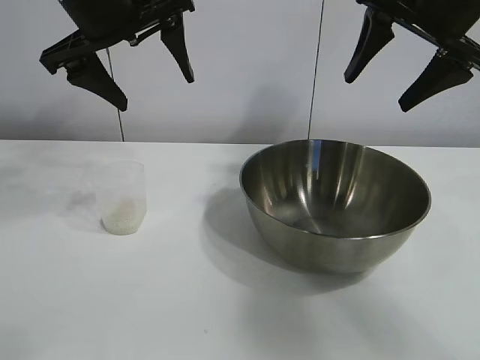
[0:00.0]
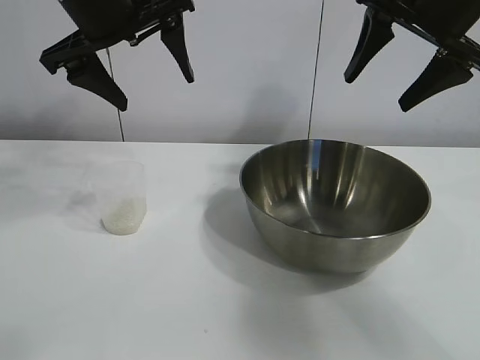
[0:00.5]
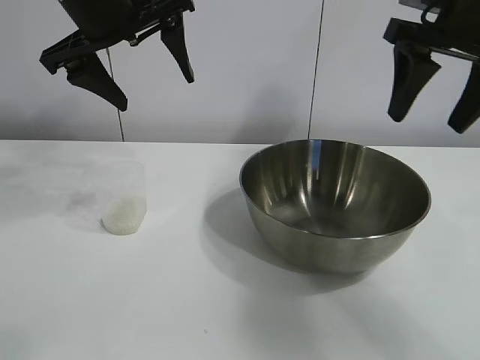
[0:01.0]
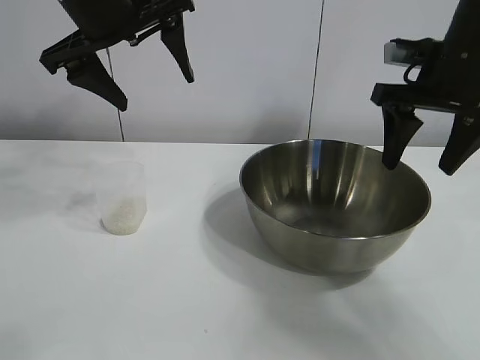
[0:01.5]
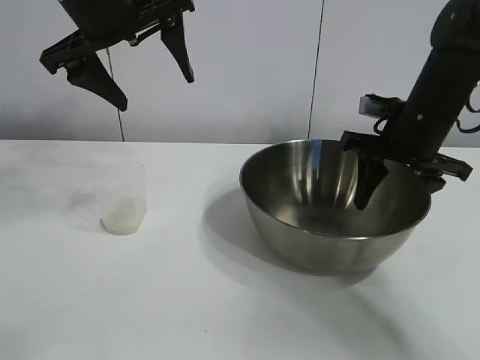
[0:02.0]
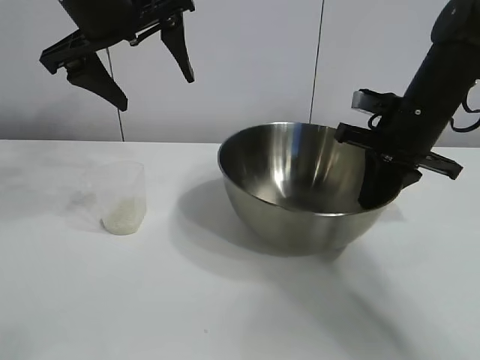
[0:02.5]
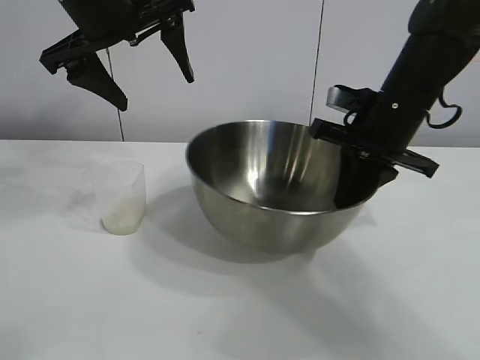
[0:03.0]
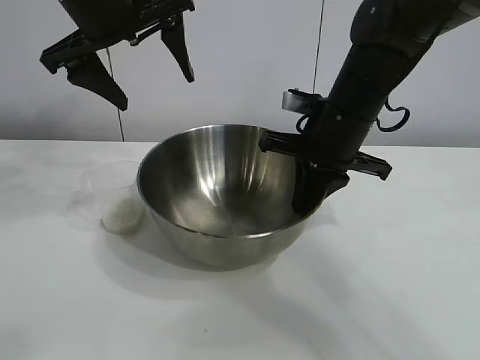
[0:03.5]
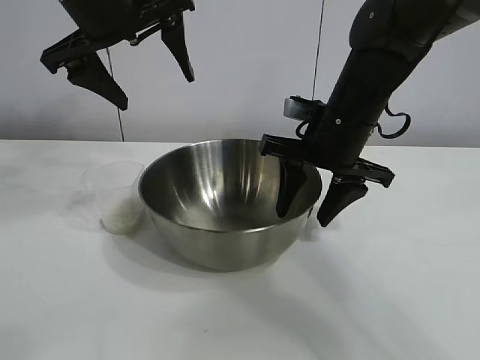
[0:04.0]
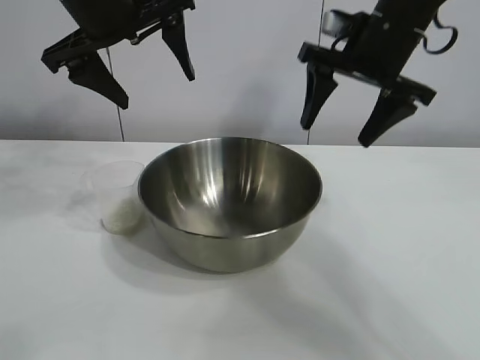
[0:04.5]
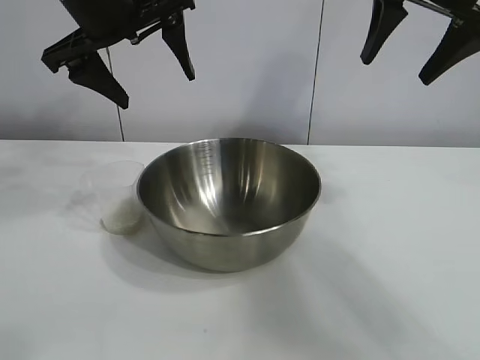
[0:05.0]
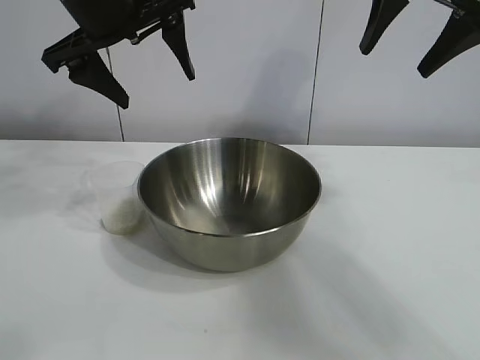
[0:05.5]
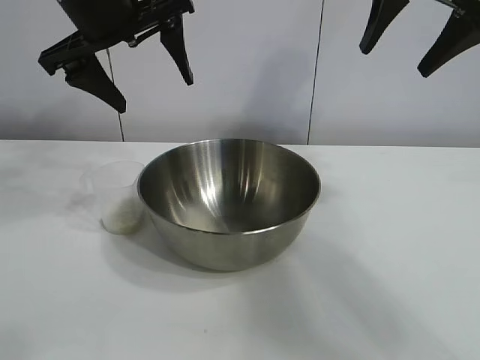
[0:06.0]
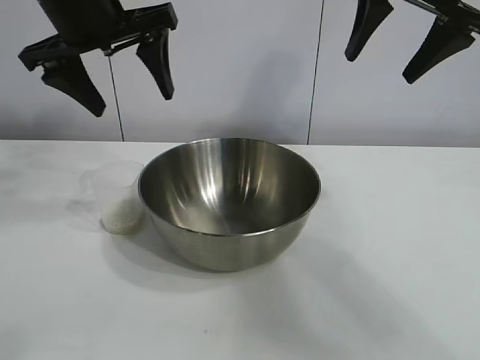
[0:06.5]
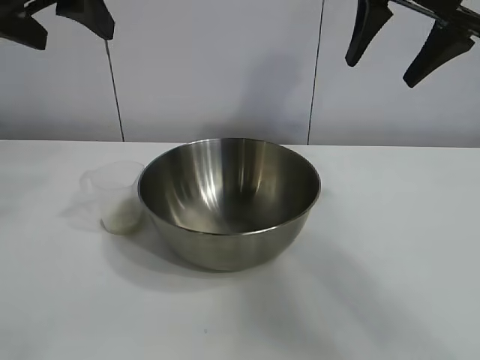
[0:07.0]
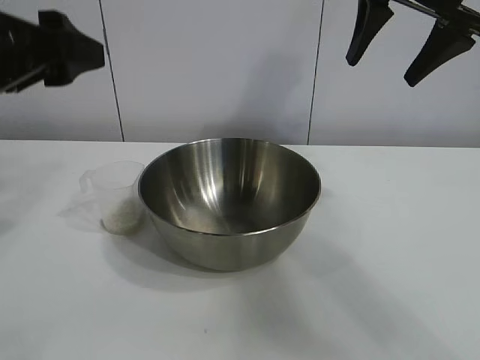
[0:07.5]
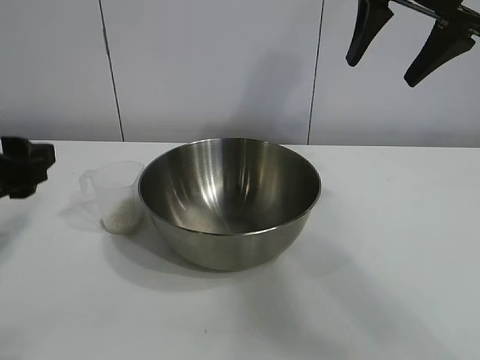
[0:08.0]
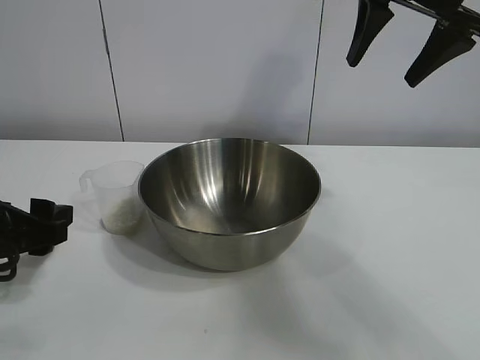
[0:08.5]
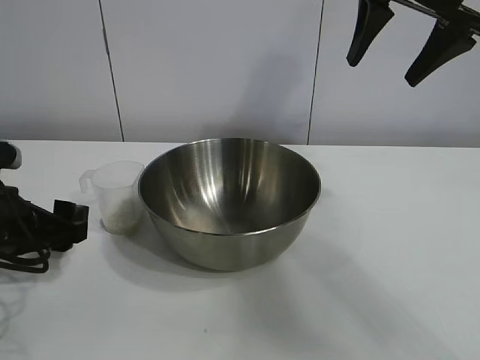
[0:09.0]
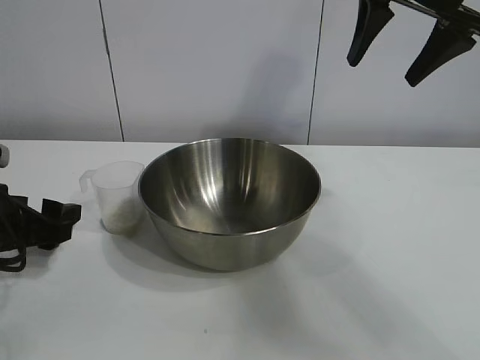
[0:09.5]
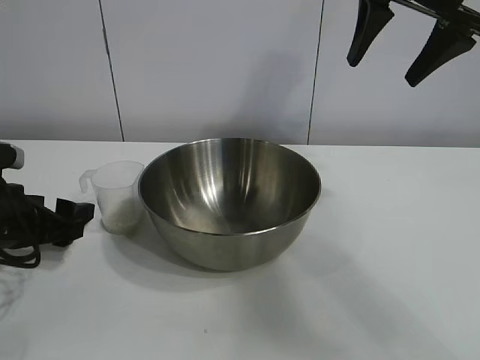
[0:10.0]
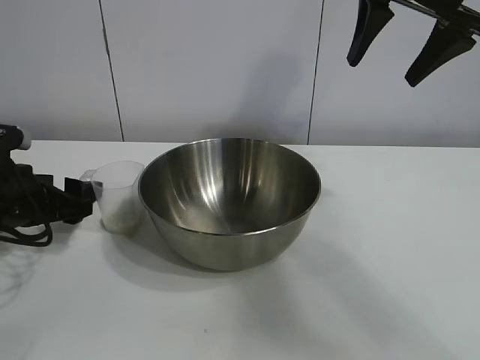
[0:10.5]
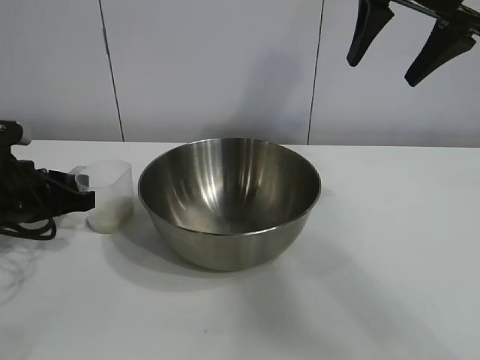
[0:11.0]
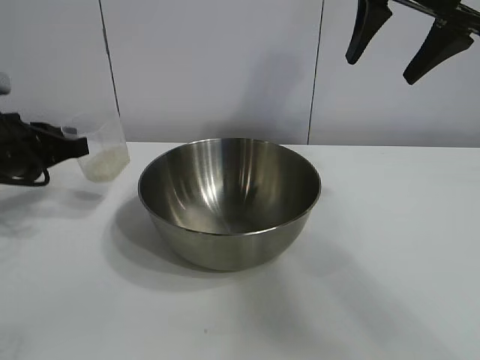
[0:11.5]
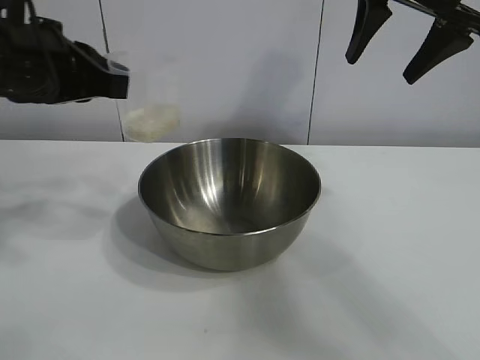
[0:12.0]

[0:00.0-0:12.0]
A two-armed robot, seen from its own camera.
Task of the whole recording: the right gripper grasp the rice container and place it in the center of the table, the left gripper grasp the rice scoop and pour the rice into the rice container.
Step, 0:01.0 to 0:04.0: Move the bowl in the center of view with right gripper.
Step, 0:04.5 to 0:11.0: Grasp the cup with rice in it with left gripper.

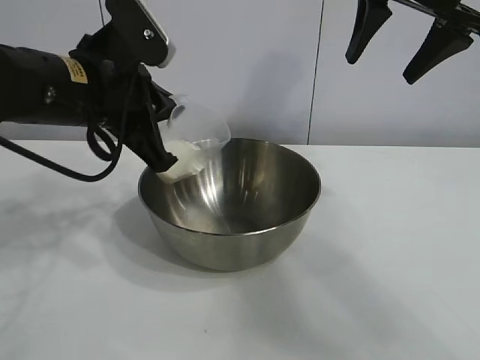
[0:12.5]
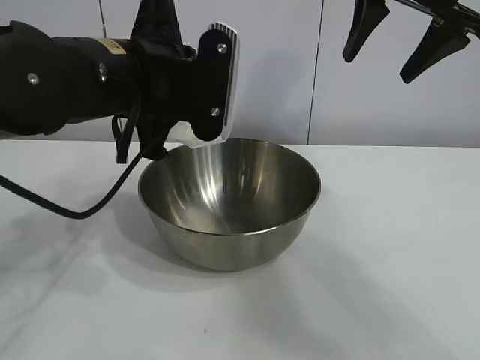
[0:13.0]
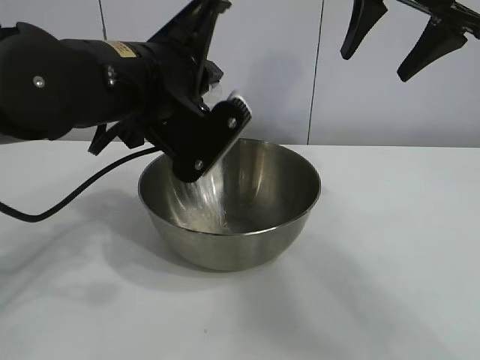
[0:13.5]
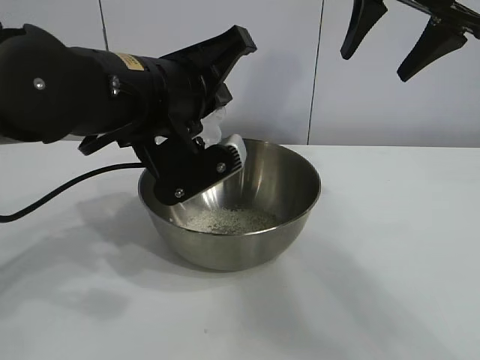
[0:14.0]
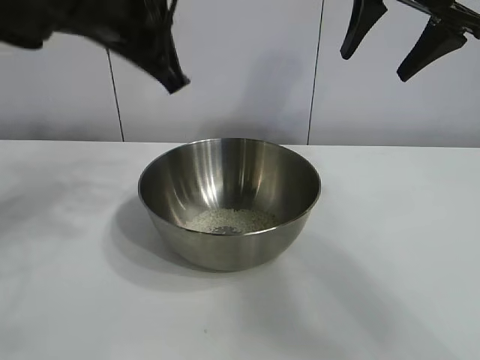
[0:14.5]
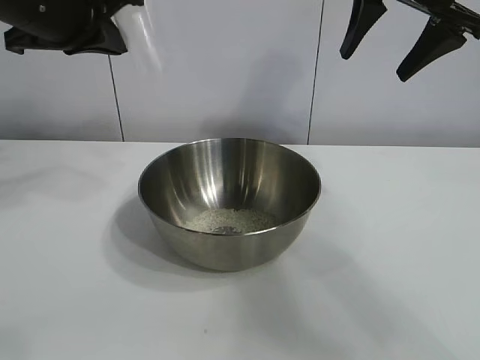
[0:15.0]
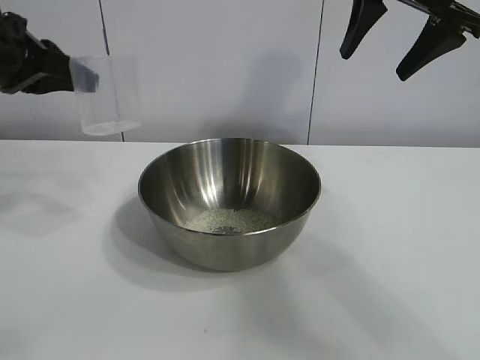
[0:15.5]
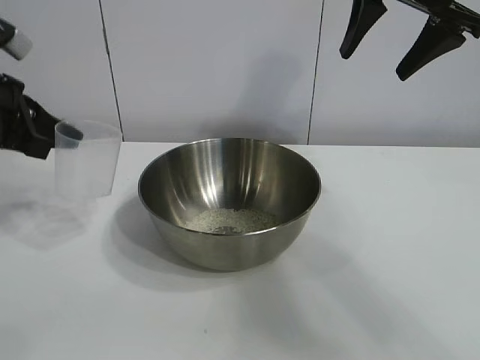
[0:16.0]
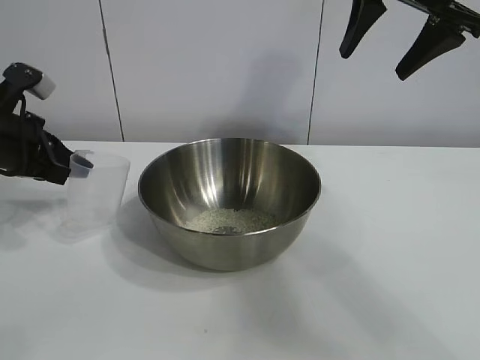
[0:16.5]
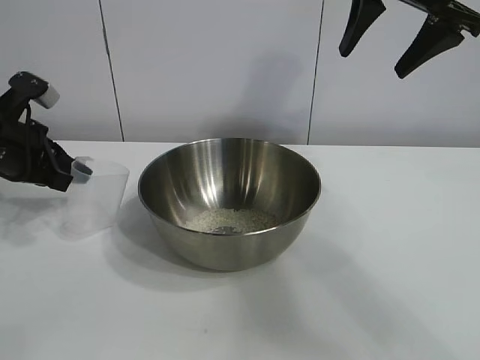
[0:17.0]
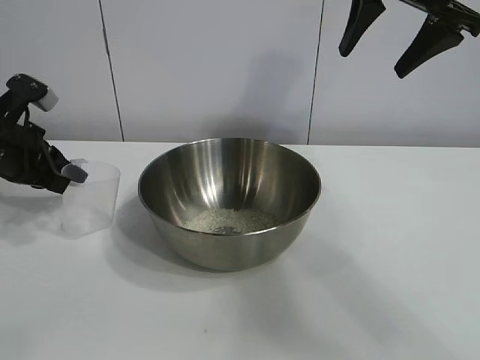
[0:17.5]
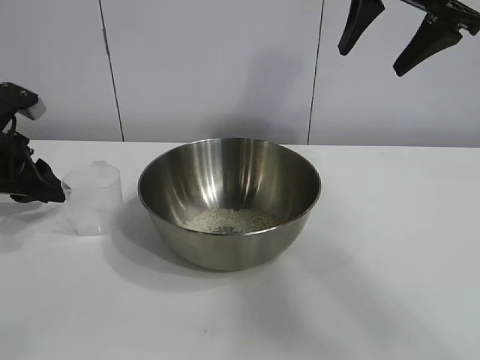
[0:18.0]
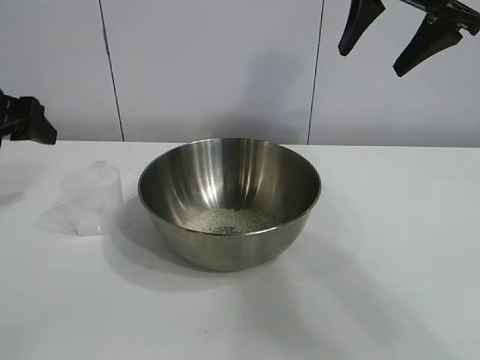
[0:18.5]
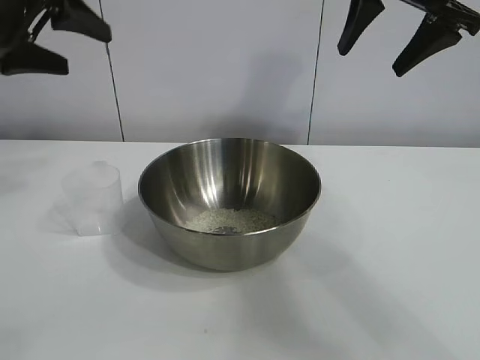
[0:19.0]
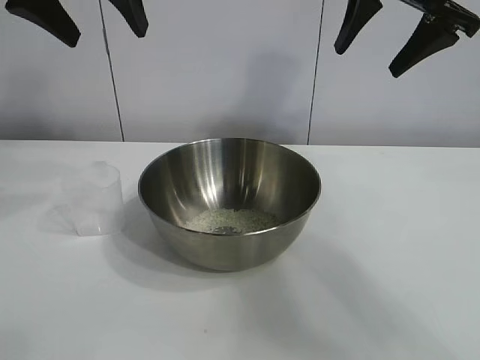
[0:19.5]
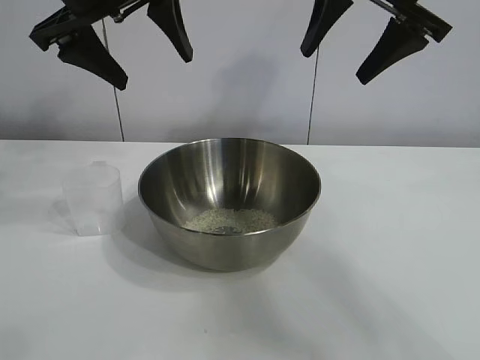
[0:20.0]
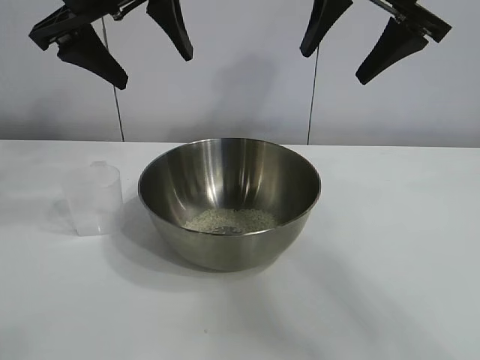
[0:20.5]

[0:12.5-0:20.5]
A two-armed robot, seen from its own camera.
Task of the whole recording: the right gripper grasp the rice container and place it in the center of the table, the left gripper grasp the rice scoop and pour the rice into the rice container.
Step, 0:12.5 to 0:14.0: Pour the rice from the cup into the bowl with the left gripper.
Step, 0:14.5 to 0:17.5: Place the cup on the table with the left gripper.
